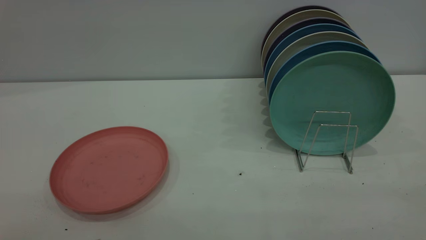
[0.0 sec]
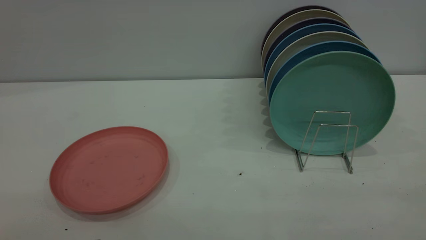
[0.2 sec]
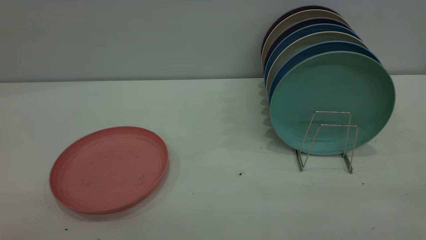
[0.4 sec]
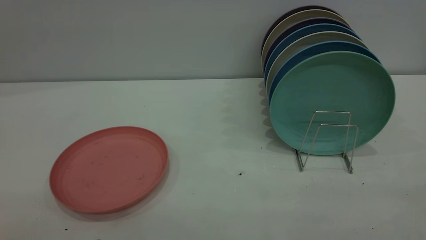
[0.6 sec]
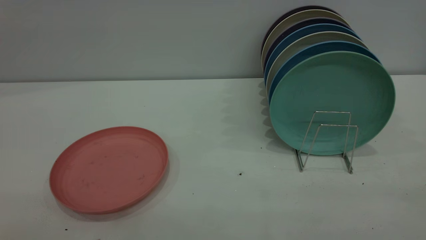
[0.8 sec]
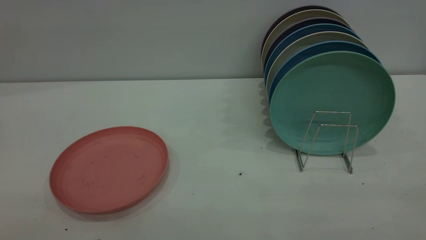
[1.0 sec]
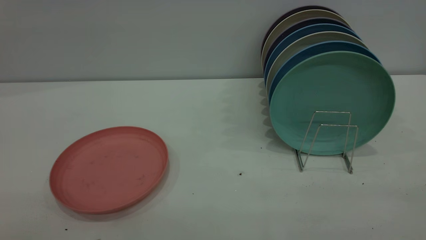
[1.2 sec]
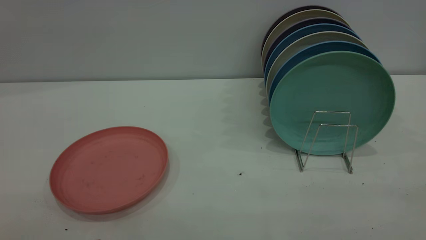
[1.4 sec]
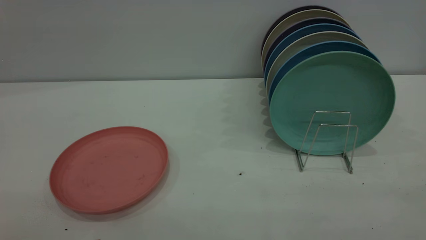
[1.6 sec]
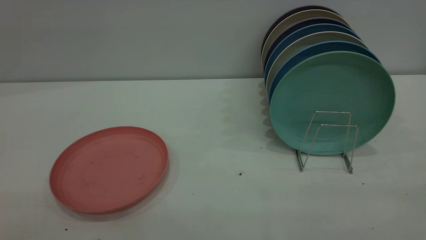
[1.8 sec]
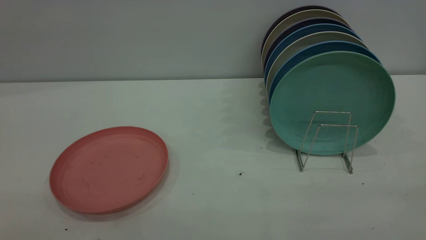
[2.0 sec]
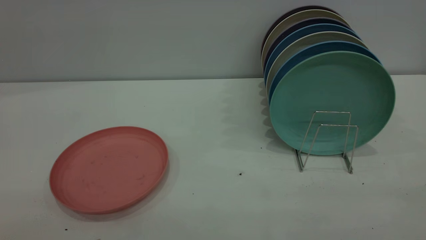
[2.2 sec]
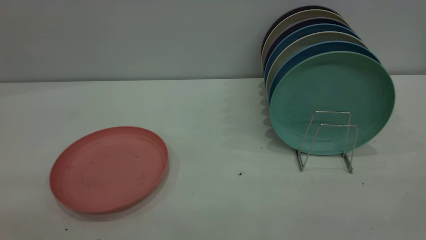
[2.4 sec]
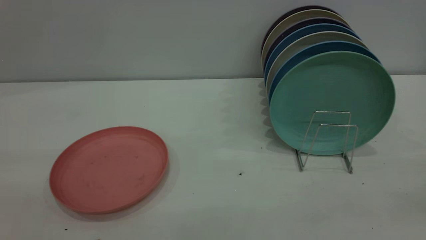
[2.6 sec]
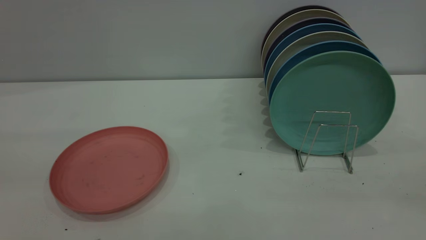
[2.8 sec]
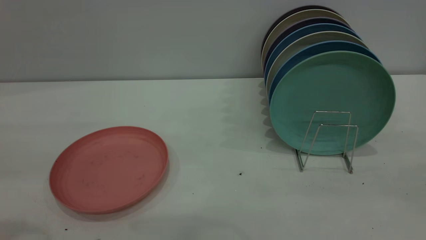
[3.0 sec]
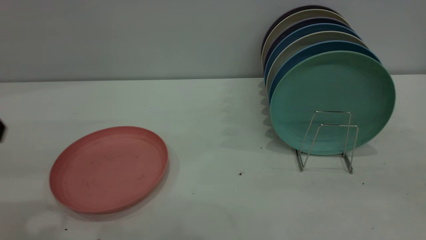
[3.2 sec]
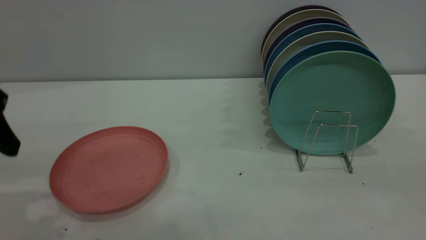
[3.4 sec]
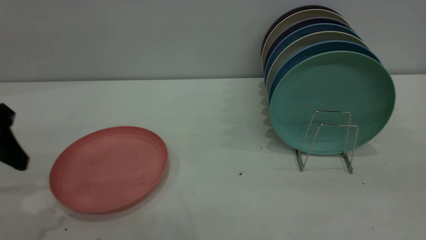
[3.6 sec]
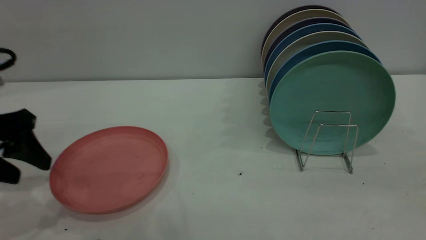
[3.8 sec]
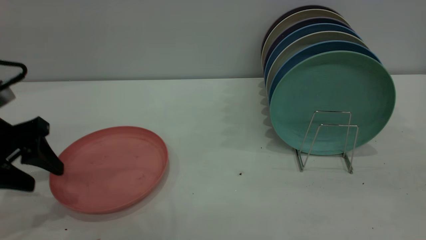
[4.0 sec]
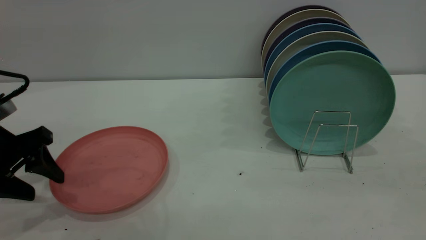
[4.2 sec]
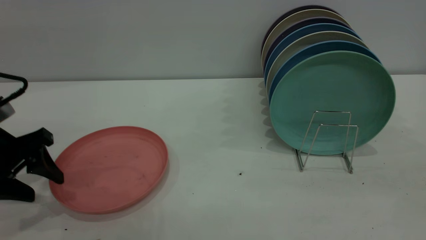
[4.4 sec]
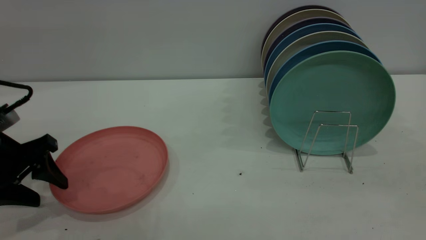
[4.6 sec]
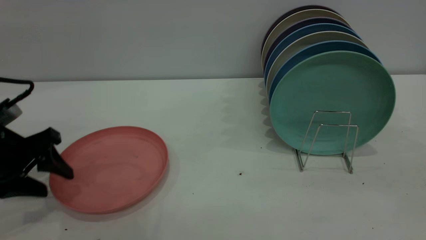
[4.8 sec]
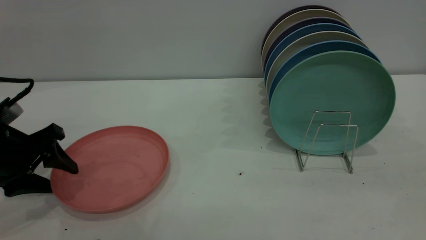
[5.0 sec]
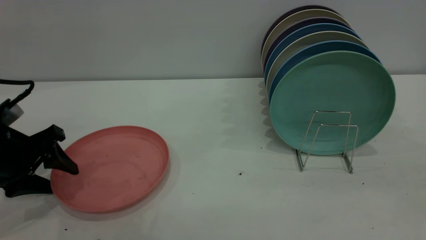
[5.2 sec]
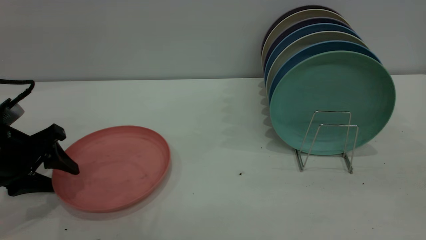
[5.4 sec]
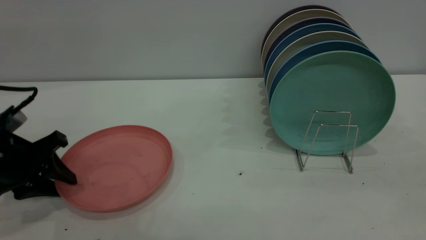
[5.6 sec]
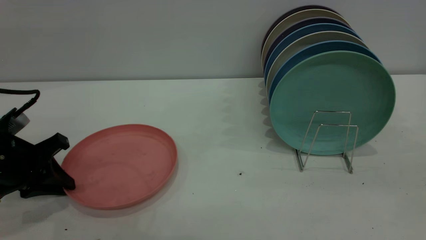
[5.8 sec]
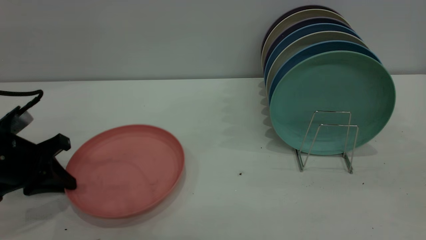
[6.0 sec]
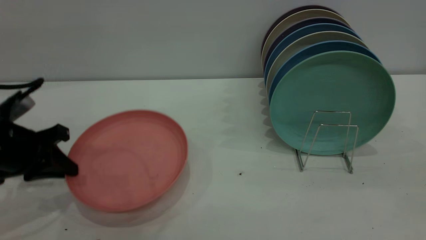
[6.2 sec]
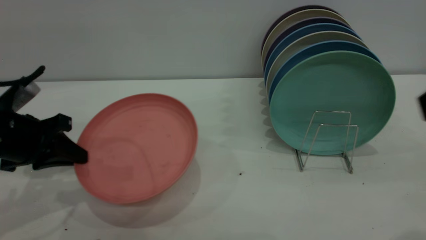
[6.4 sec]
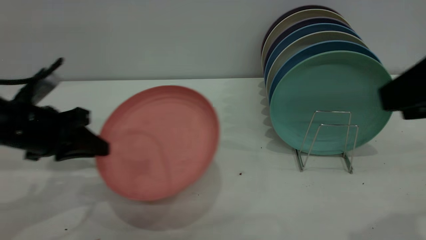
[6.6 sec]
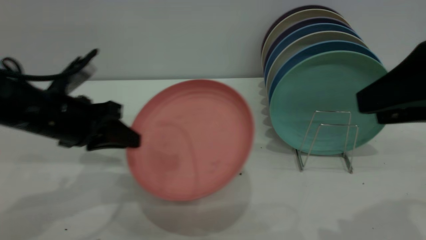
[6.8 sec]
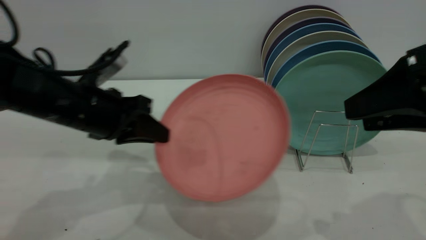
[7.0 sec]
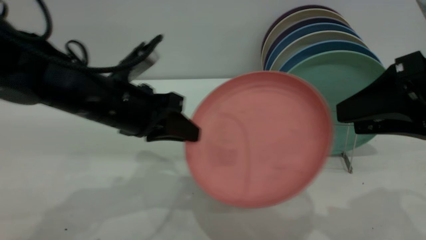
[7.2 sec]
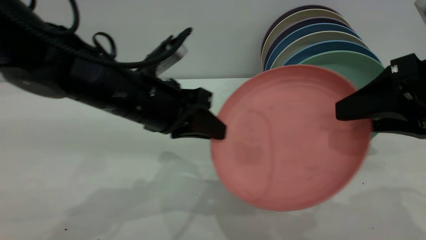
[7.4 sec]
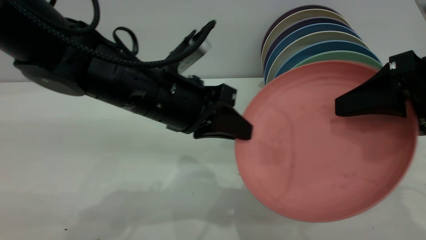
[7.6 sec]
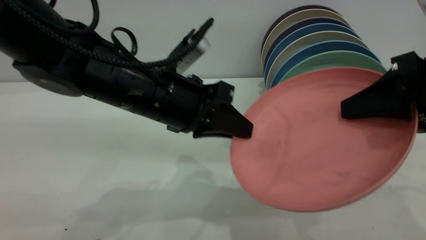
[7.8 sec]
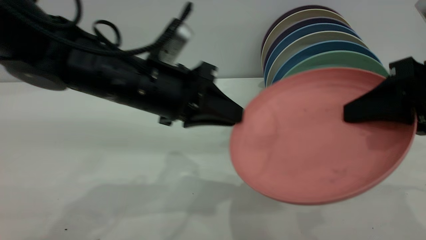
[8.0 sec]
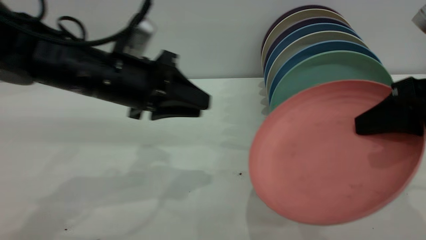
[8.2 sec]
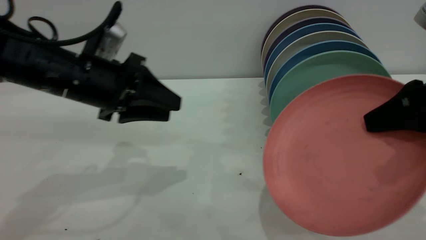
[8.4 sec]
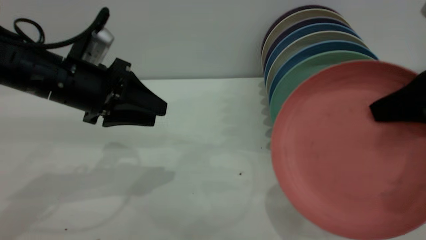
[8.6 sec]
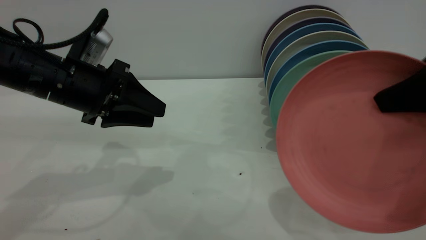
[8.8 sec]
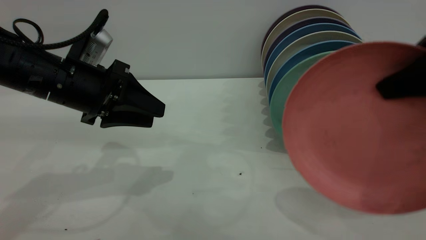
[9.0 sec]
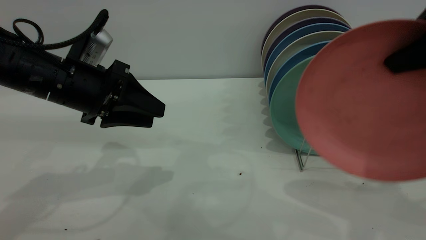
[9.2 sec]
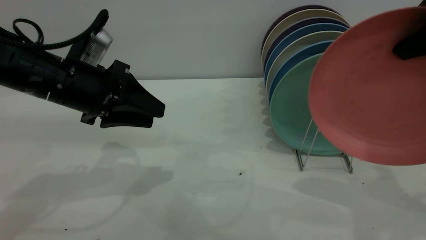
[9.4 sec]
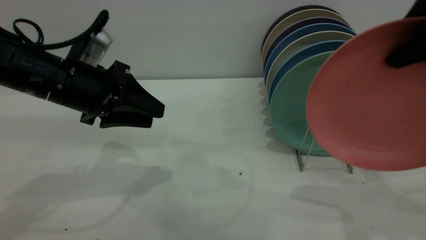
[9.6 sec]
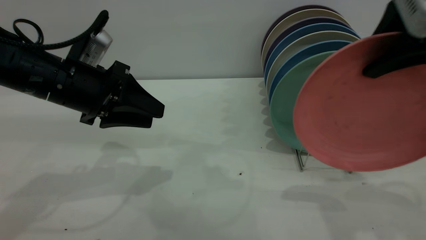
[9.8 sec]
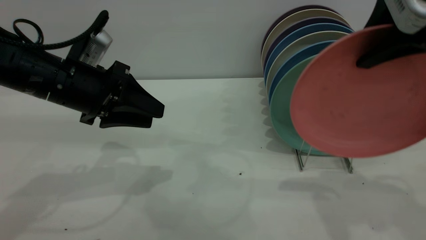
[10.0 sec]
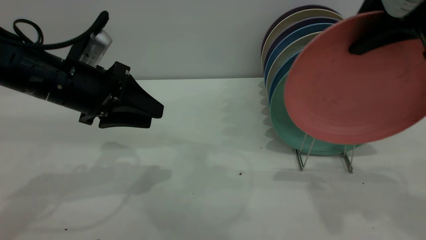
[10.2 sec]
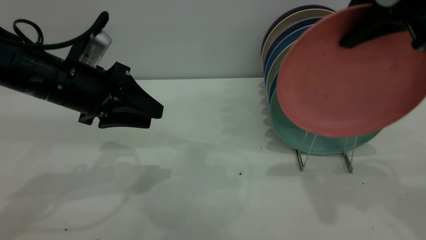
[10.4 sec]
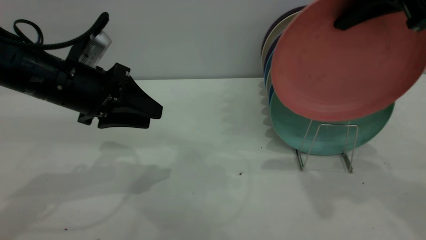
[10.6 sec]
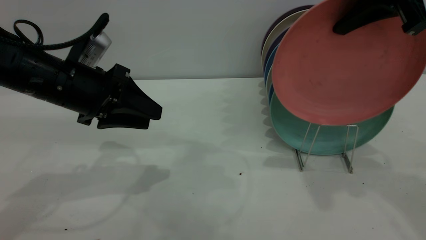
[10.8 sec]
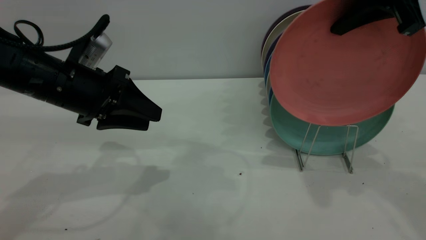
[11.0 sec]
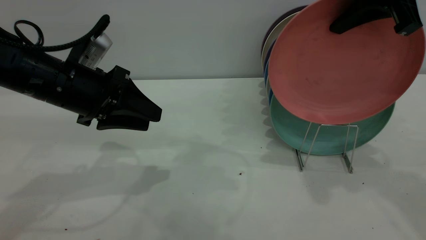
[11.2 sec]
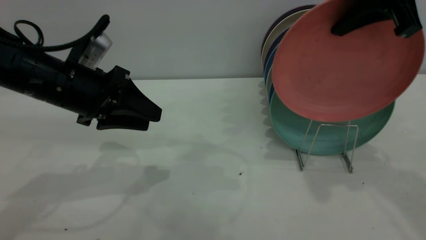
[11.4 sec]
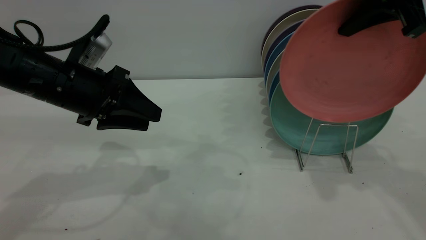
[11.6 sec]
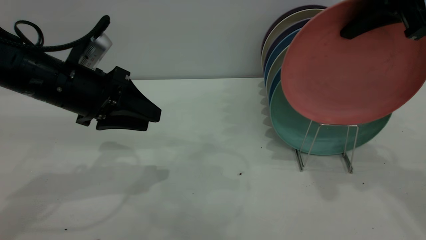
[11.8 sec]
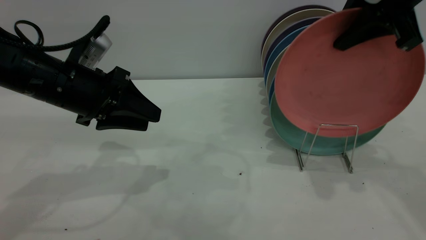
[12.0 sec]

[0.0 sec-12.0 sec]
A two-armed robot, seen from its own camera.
Task of the whole recording: put the plate on the plate rack.
Step, 0.0 sec to 6.0 sec: Pick up the plate with the left gripper.
Step, 6.2 sec to 7.2 sec: Pass the plate from the left gripper to the right gripper.
0.0 sec to 1.6 sec: The two grippers keep their place.
3.0 sec to 4.4 sec: The left gripper is displaced downward and forward by approximately 20 cm.
4.4 sec to 6.0 sec: The left gripper closes its fingers.
6.0 sec to 7.6 sec: The right gripper shifts some 15 cm forward and downward. The left gripper moves to the right, some 25 cm.
7.6 sec to 9.0 sec: The left gripper heads to the left, covering roughly 15 cm, and opens its fingers; the right gripper moves upward, roughly 5 cm, and closes.
9.0 sec to 10.4 sec: The right gripper moves forward, some 10 cm.
10.4 sec to 12.0 sec: There are only small adjustments of the grippers.

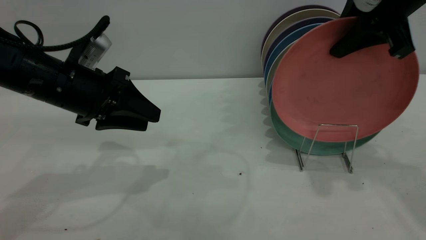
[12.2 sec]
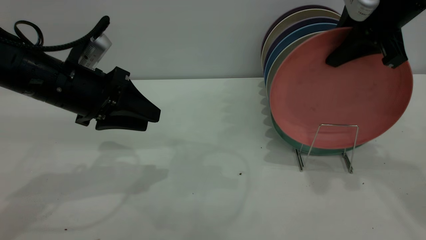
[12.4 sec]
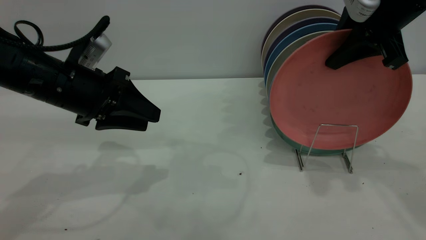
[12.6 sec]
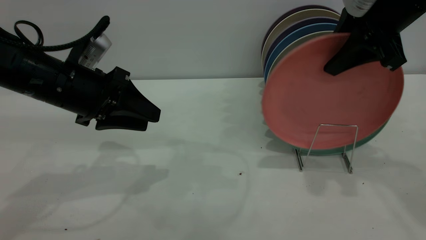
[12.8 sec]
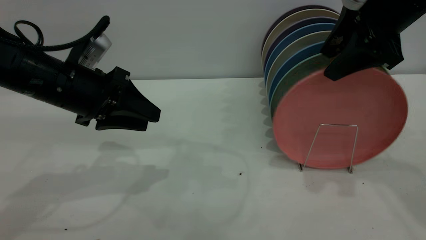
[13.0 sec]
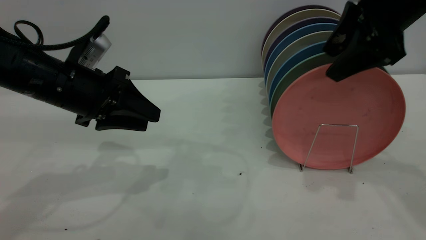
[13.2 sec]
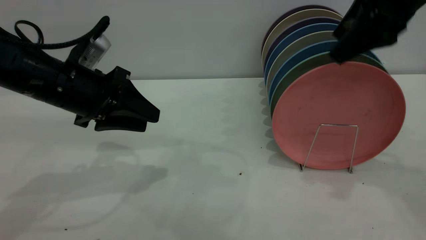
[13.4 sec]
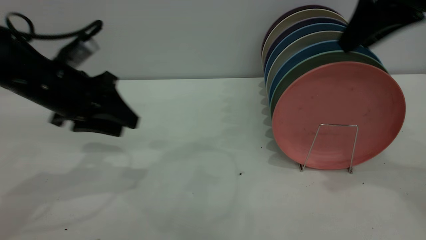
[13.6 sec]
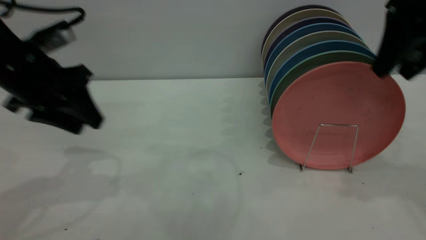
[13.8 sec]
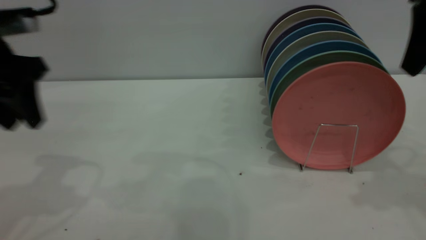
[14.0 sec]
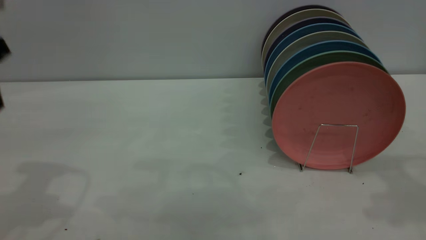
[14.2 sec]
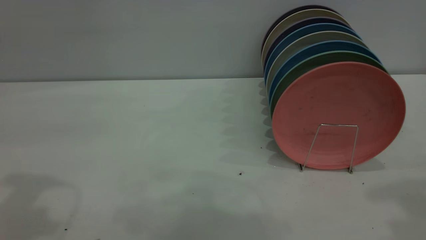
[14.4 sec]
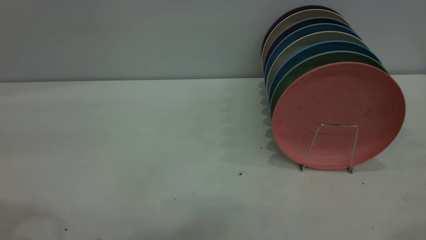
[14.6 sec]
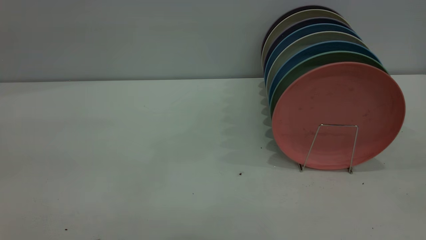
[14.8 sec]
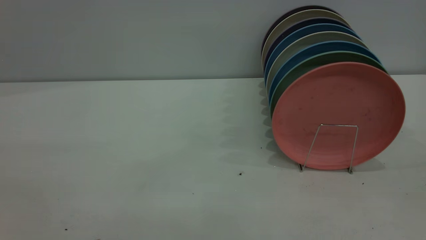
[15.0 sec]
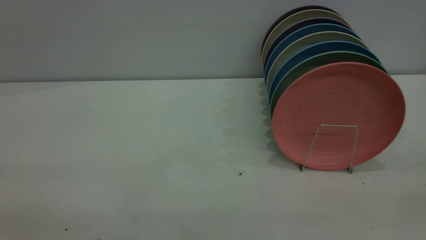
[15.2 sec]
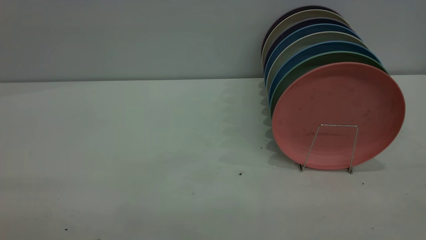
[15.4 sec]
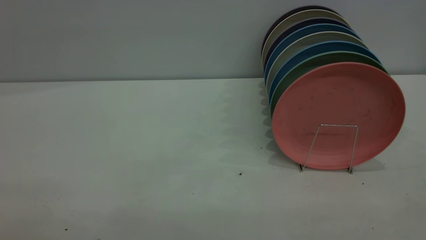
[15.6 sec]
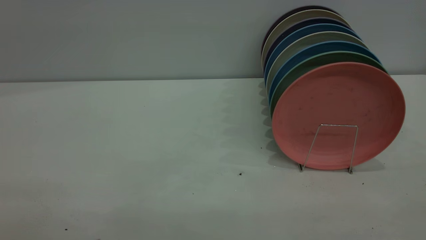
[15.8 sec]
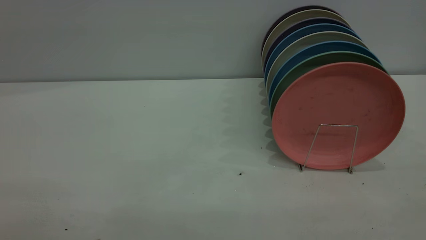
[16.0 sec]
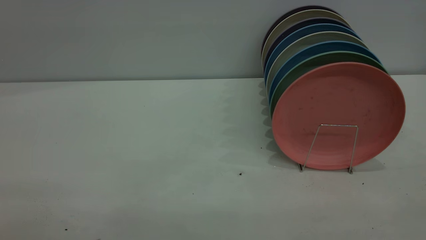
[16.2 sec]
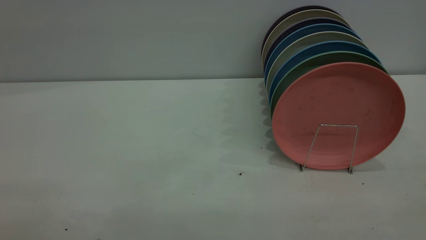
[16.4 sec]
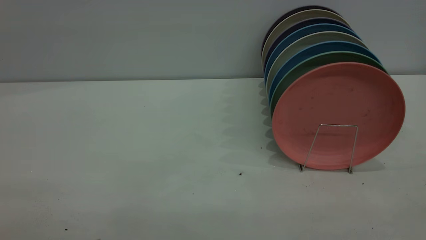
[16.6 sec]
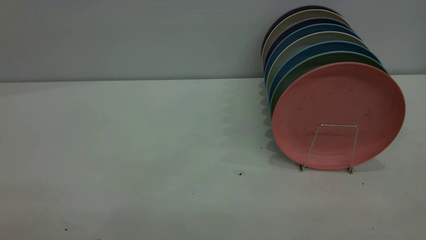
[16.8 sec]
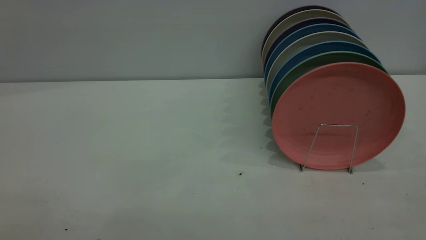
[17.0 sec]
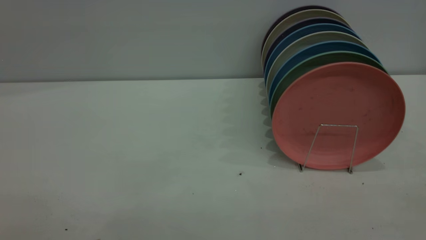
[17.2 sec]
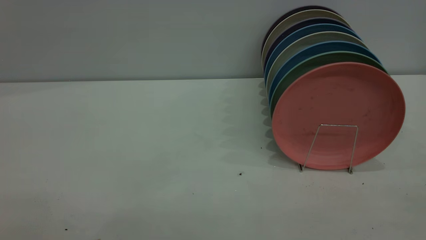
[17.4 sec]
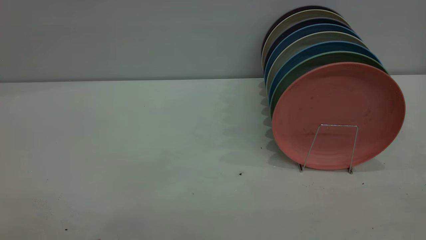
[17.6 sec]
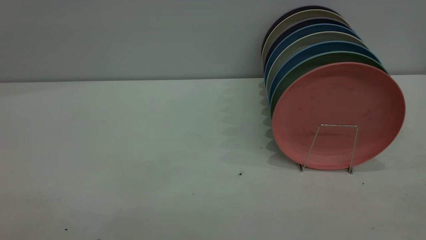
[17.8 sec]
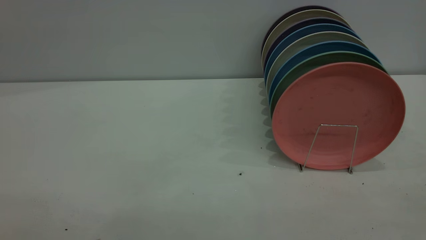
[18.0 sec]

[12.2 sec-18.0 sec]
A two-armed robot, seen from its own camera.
Task of the whole recording: put the plate on the plate rack.
12.2 sec to 13.6 sec: The right gripper opens its fingers.
13.6 sec to 15.0 sec: The left gripper travels backward and upward by roughly 30 cm, while the right gripper travels backward by roughly 30 cm.
